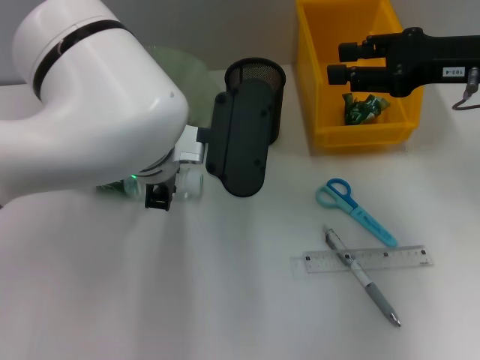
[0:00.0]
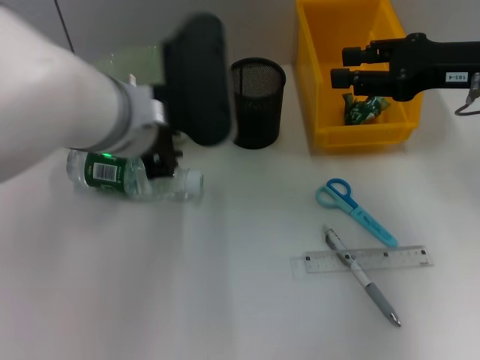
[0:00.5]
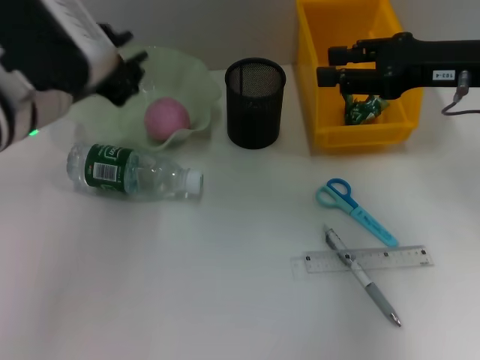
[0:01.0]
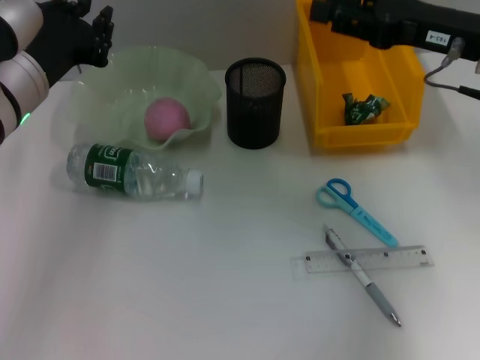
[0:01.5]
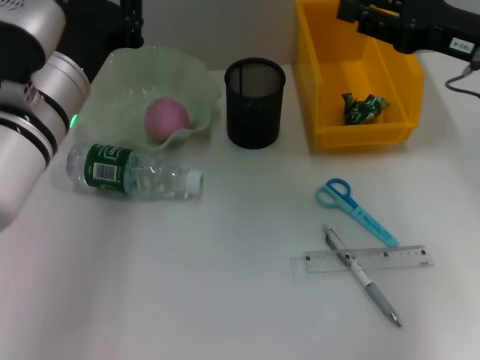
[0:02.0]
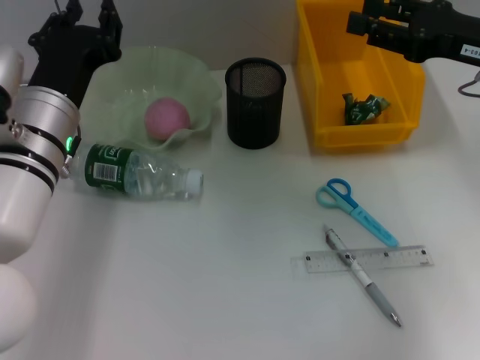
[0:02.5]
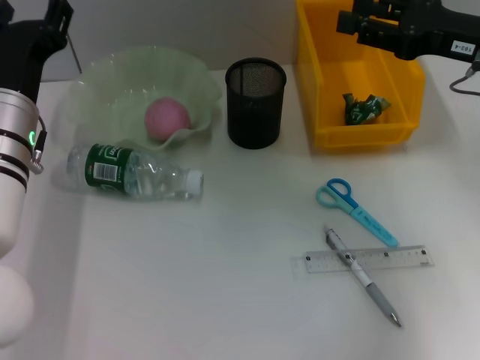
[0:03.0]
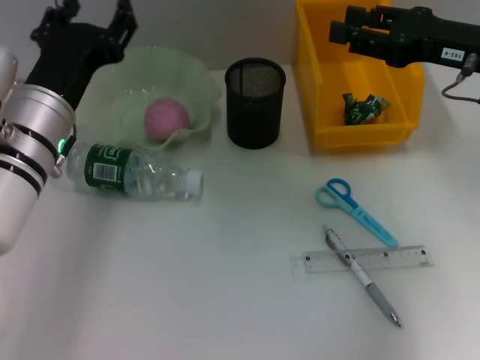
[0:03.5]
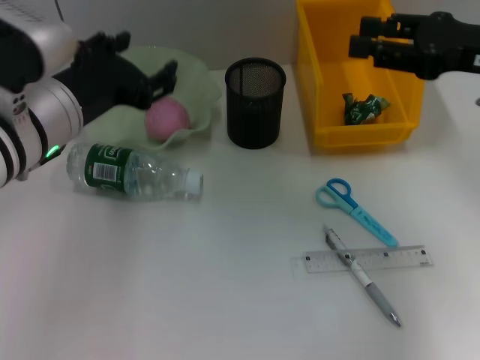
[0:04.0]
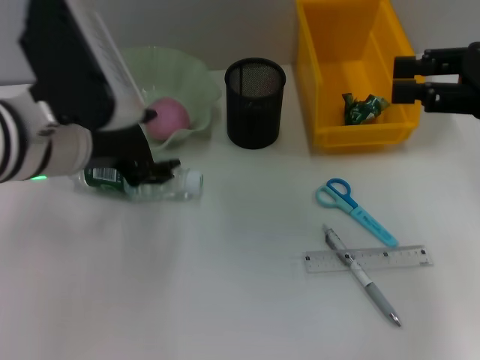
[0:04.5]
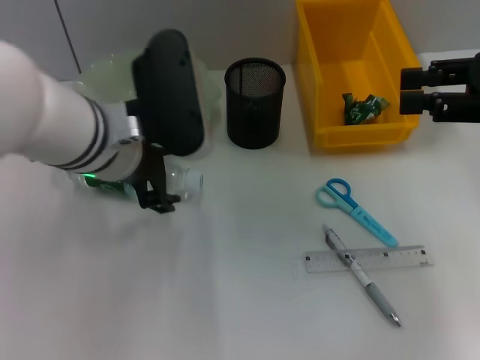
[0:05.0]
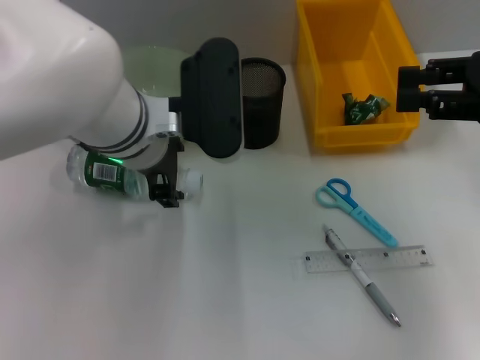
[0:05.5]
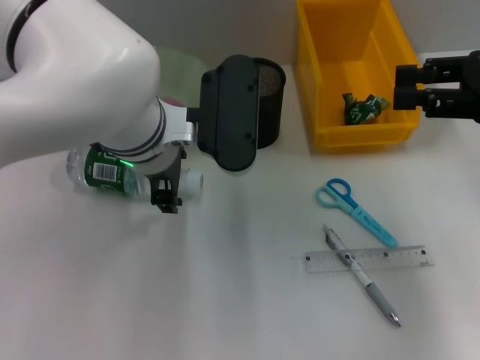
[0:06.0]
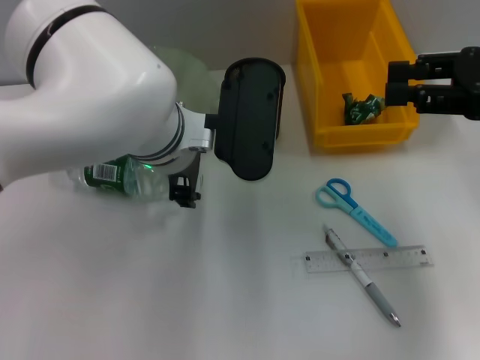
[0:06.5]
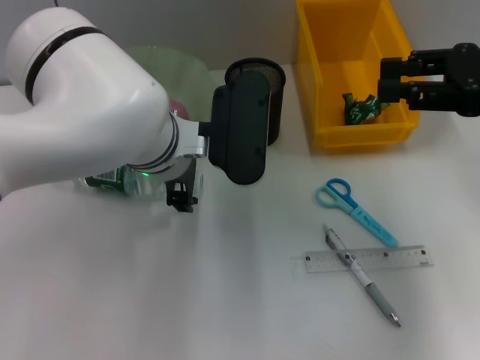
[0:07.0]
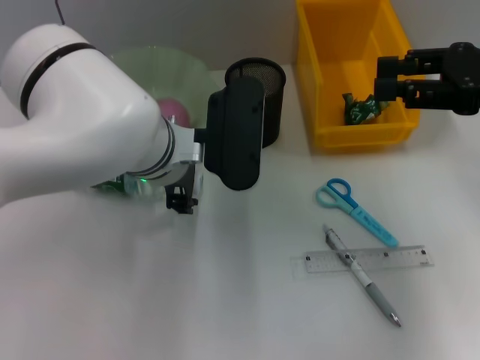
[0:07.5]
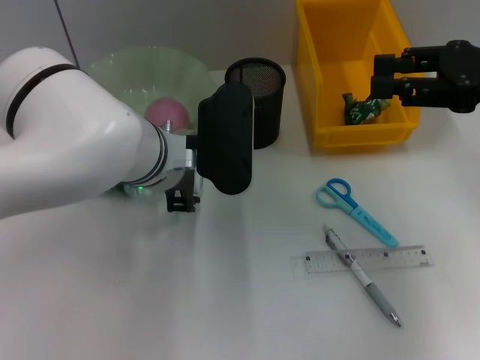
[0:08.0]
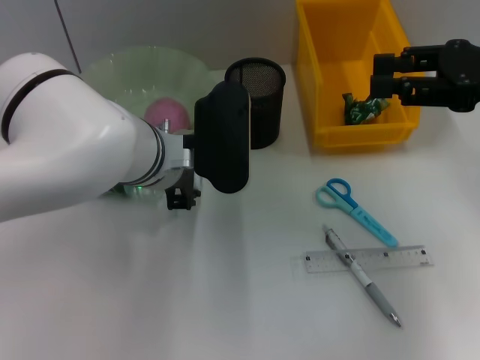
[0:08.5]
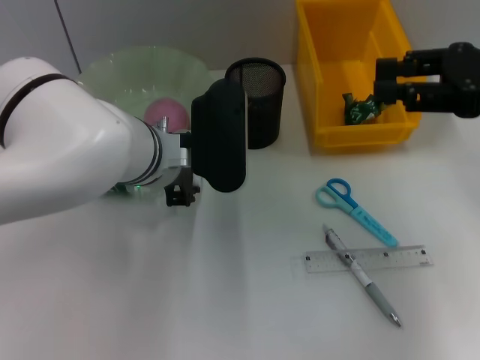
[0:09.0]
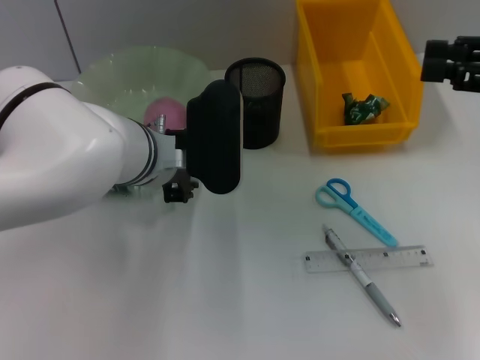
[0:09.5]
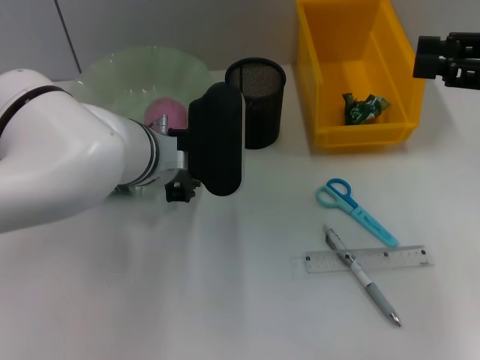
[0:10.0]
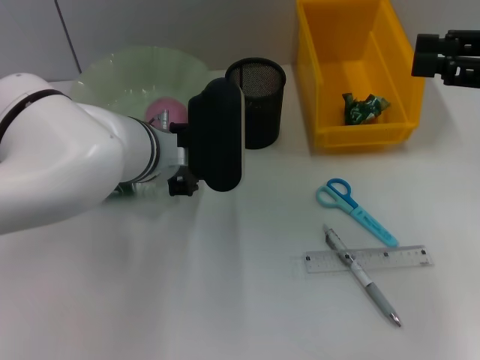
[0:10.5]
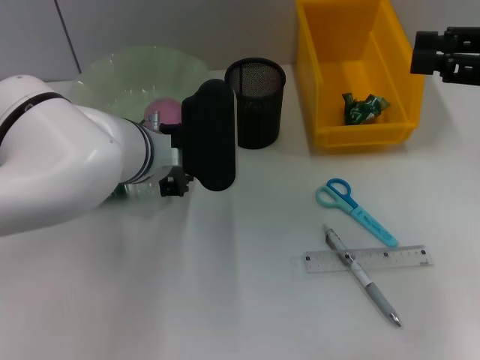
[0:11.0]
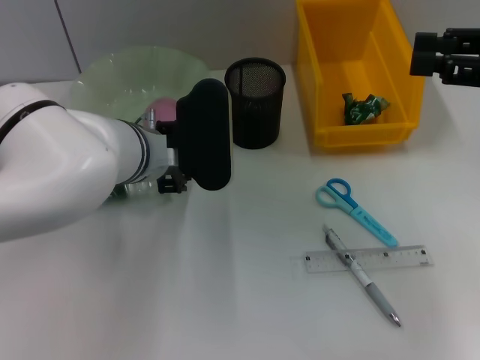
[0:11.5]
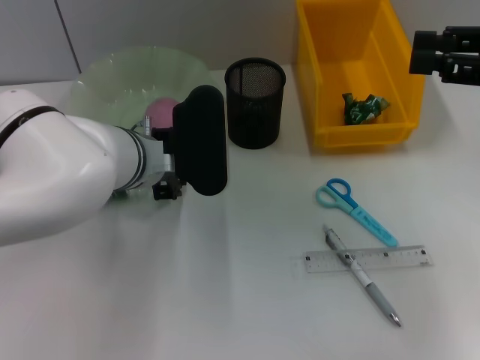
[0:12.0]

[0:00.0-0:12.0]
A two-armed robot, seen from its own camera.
0:00.0 to 0:02.0: The left gripper heads to the left, covering about 10 cm.
0:02.0 to 0:04.0: The left gripper opens up.
0:04.0 to 0:06.0: The left gripper heads to the right, covering some 10 cm.
0:08.0 to 0:12.0: The grippers stay close to where they were, moving slightly.

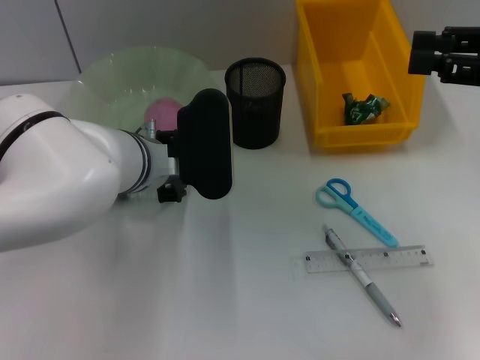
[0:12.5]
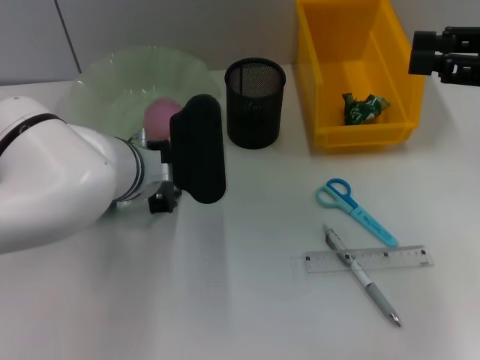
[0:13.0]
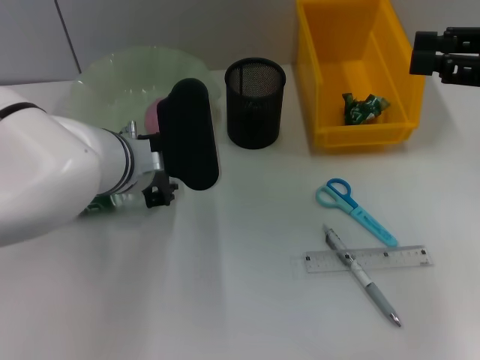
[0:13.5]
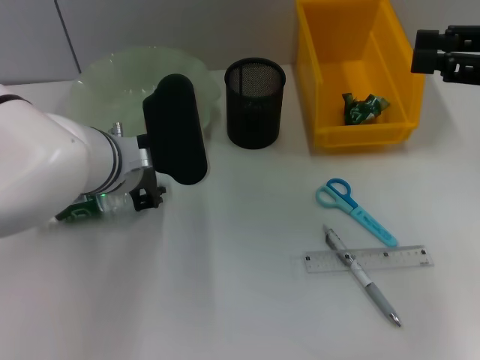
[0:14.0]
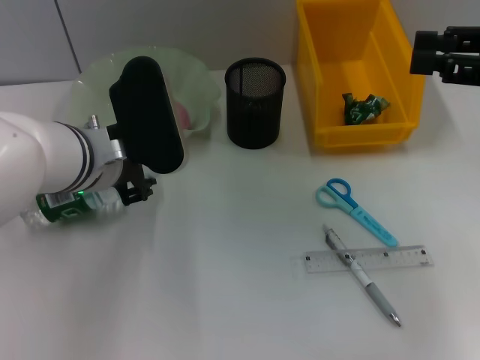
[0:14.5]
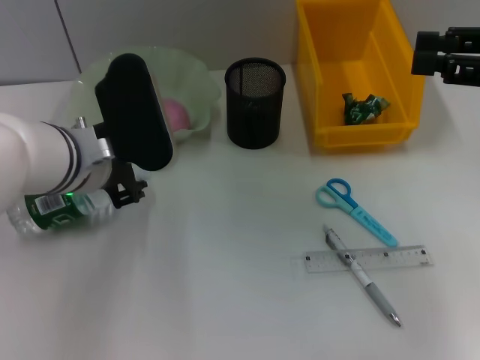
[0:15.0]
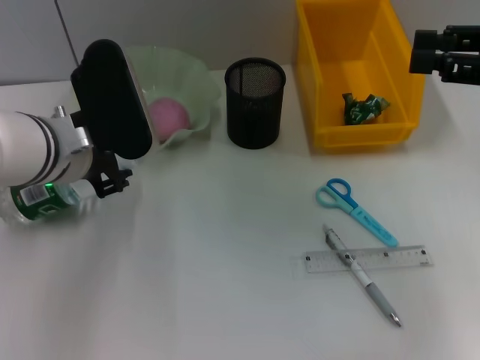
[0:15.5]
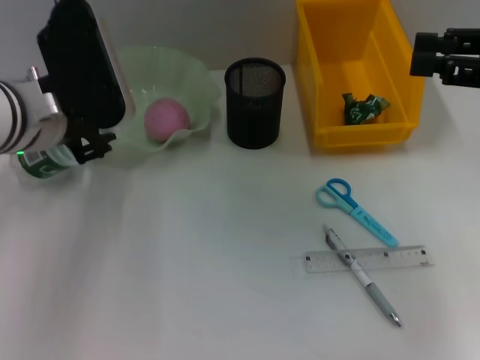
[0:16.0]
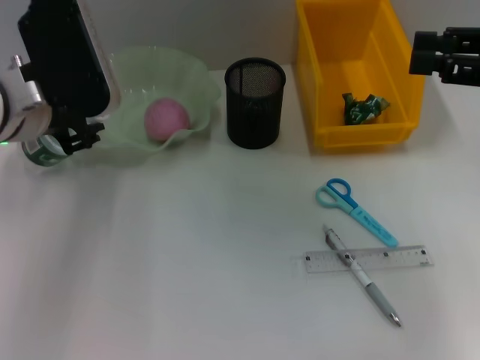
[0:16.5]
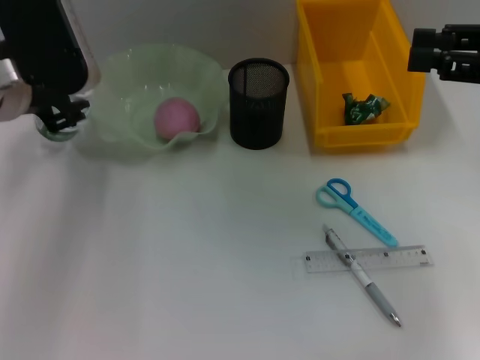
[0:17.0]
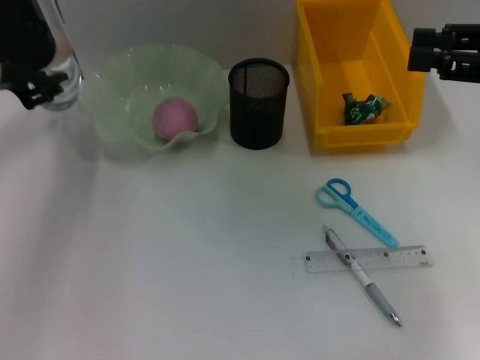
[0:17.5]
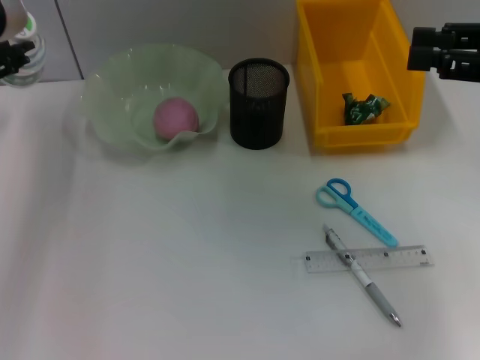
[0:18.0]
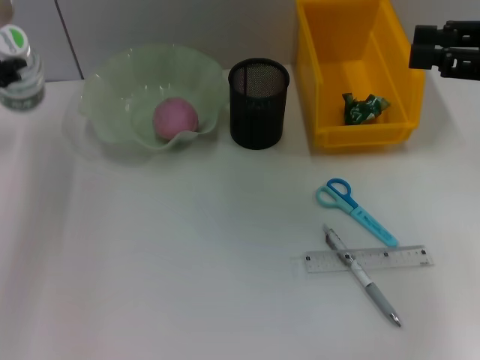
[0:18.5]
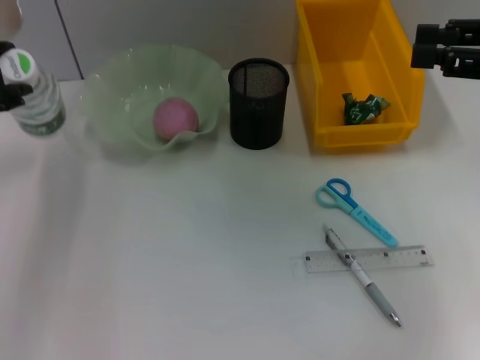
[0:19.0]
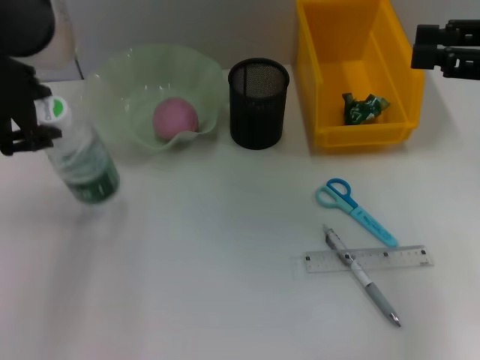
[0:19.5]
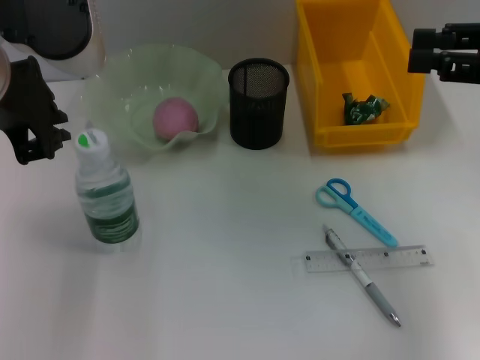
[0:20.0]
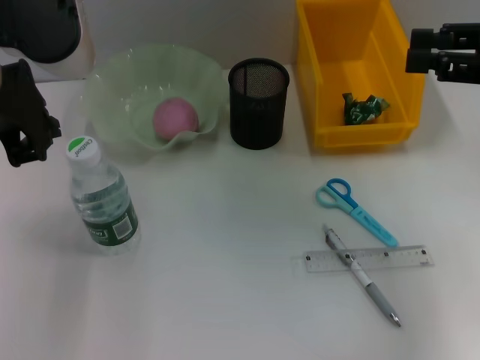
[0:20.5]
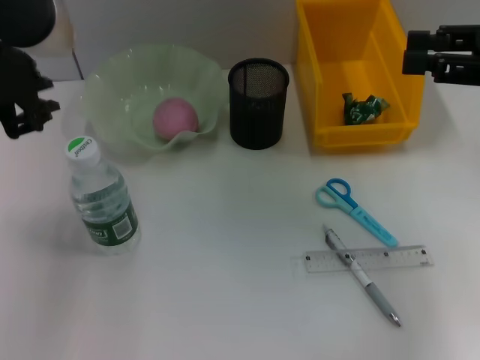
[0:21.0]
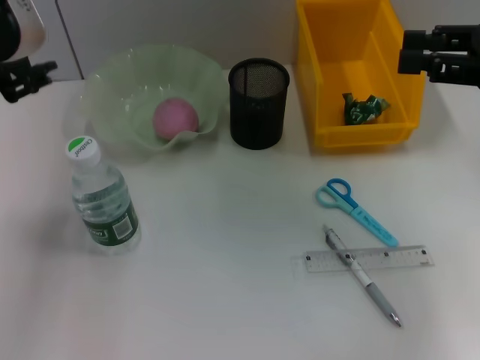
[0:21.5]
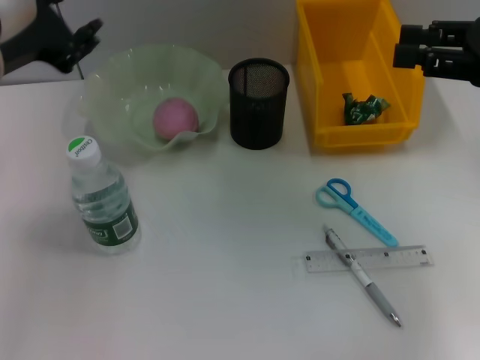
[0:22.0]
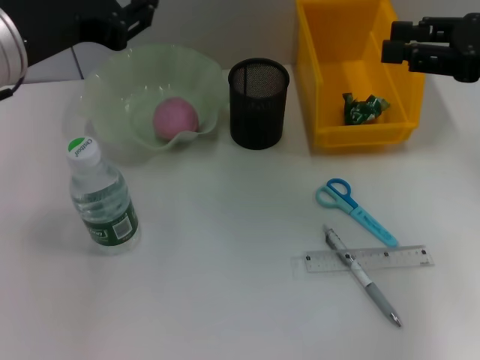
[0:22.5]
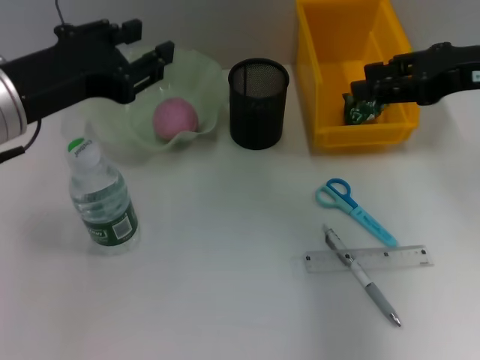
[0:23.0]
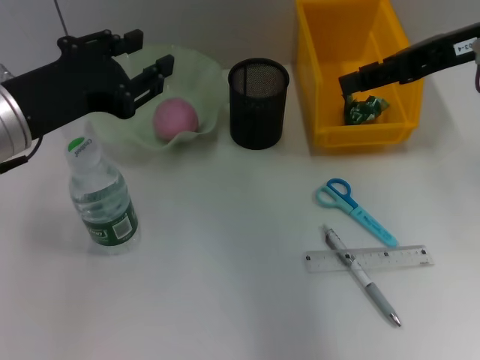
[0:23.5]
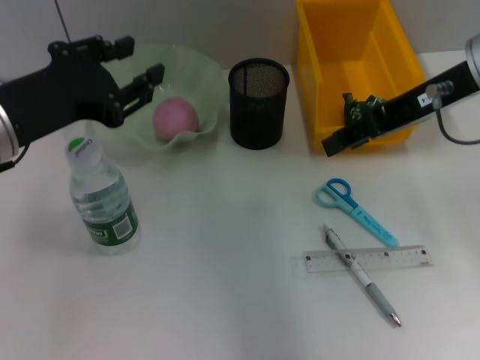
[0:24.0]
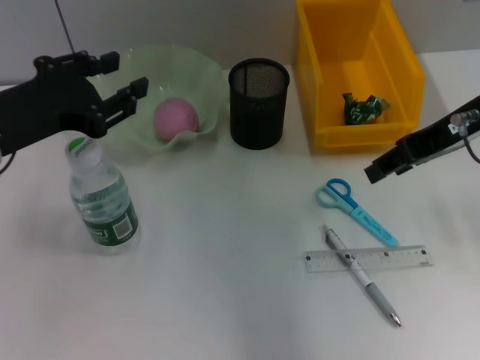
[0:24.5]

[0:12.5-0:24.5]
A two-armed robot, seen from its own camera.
Step, 0:14.0 to 0:20.0: Place the water bottle on the table with the left hand.
0:12.5 to 0:14.5: The left gripper changes place by approximately 5 cm.
0:14.5 to 0:16.5: The left gripper is displaced upward by about 5 cm.
0:16.5 to 0:18.5: The left gripper goes roughly 10 cm upward.
0:18.5 to 0:20.5: The left gripper shifts by roughly 5 cm.
0:20.5 to 0:22.5: The left gripper opens its fingers.
0:22.5 to 0:24.5: The right gripper travels to the left by about 10 cm, while the left gripper goes roughly 5 cm downward.

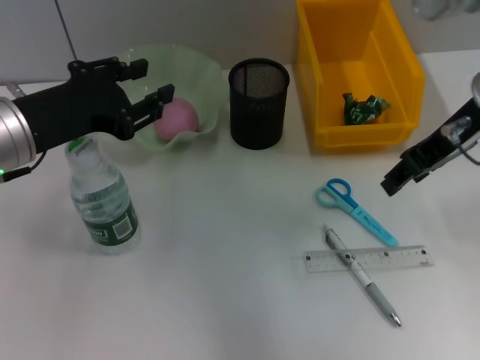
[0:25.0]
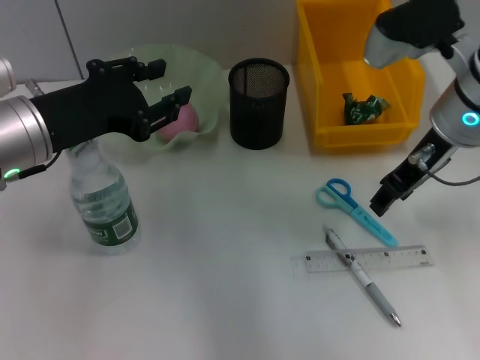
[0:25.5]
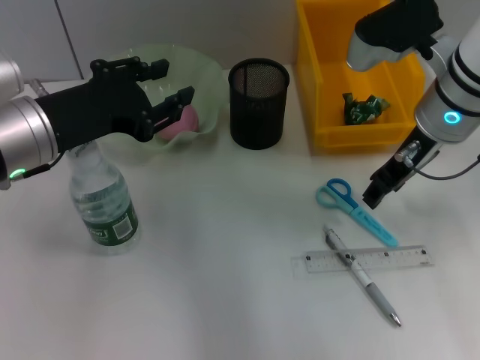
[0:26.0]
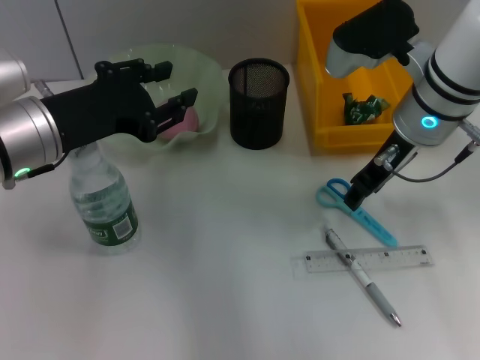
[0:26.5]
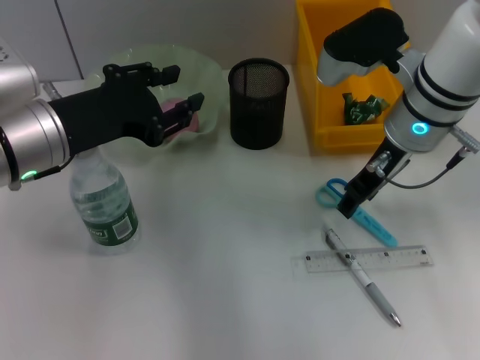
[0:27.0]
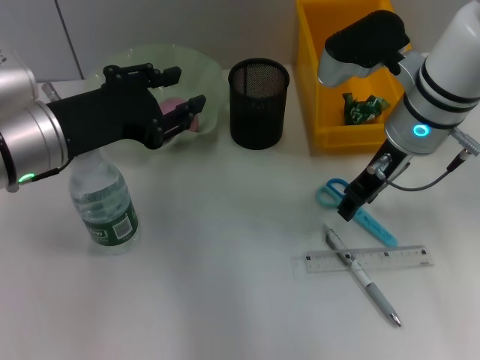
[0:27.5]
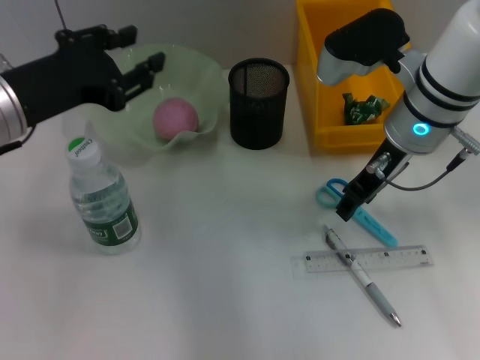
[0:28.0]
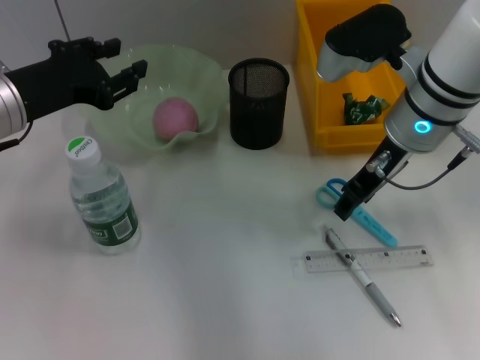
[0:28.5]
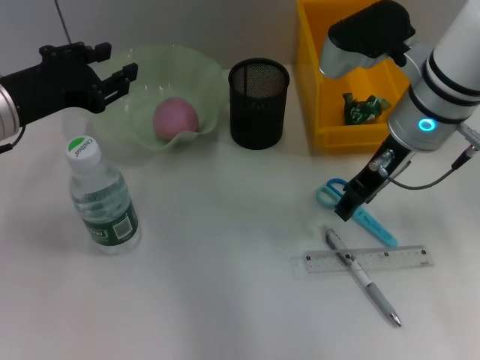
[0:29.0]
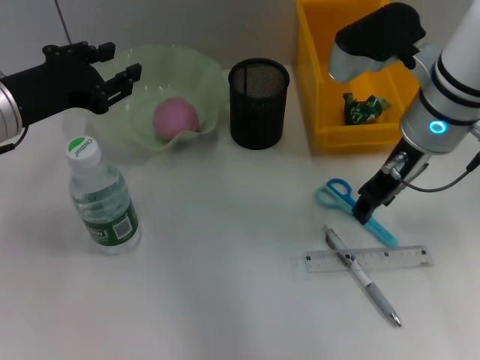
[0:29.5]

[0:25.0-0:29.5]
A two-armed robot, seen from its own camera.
0:25.0 to 0:27.0: The right gripper goes some 10 cm downward and to the left.
0:27.0 to 0:29.5: The left gripper shifts by some 5 cm.
